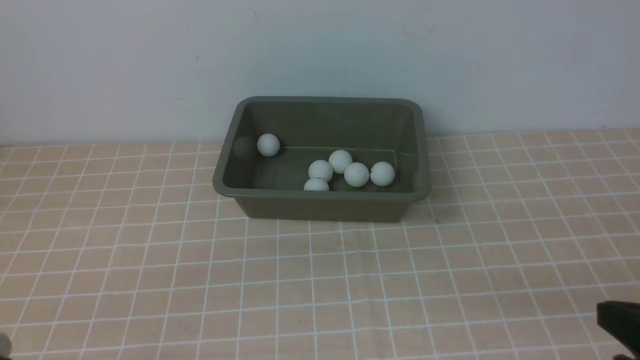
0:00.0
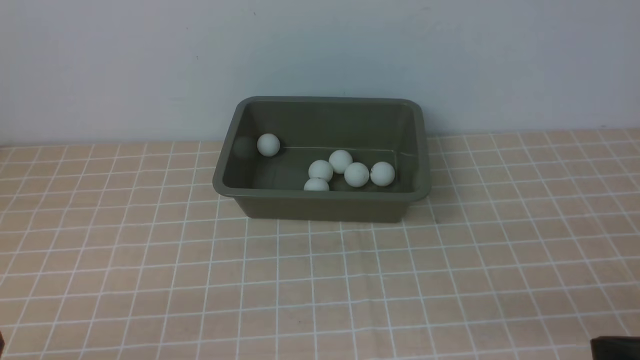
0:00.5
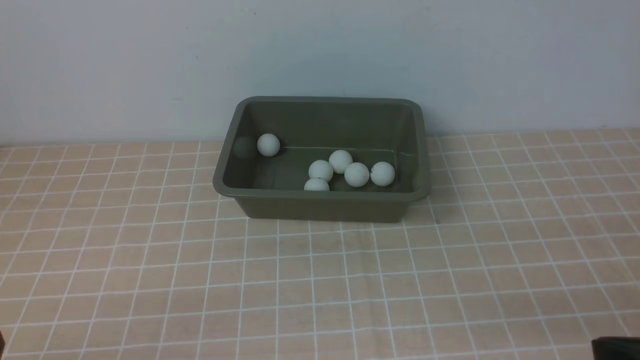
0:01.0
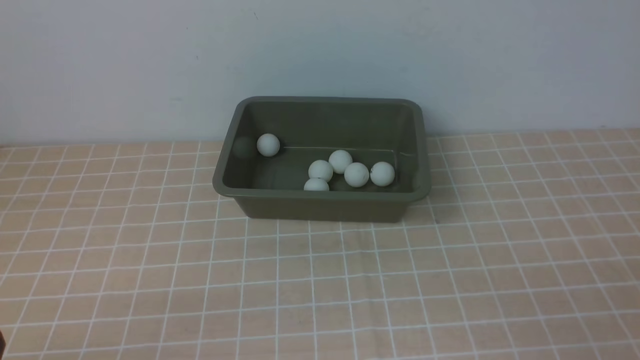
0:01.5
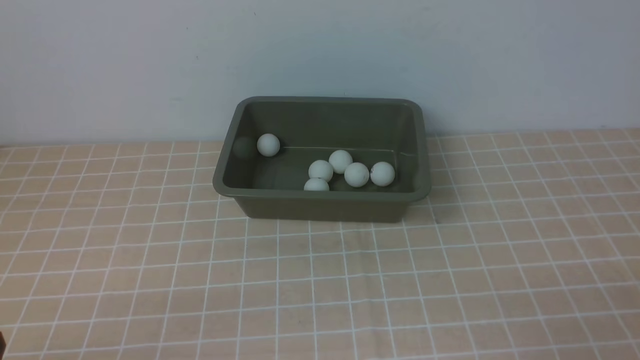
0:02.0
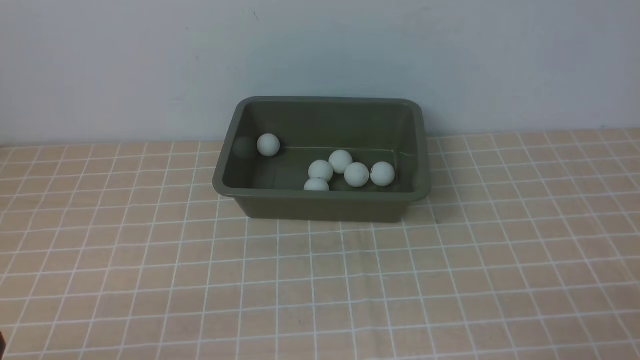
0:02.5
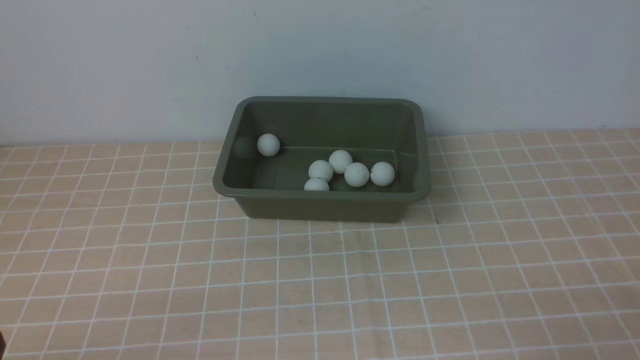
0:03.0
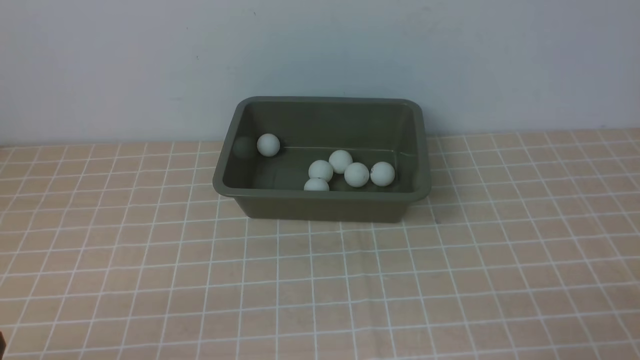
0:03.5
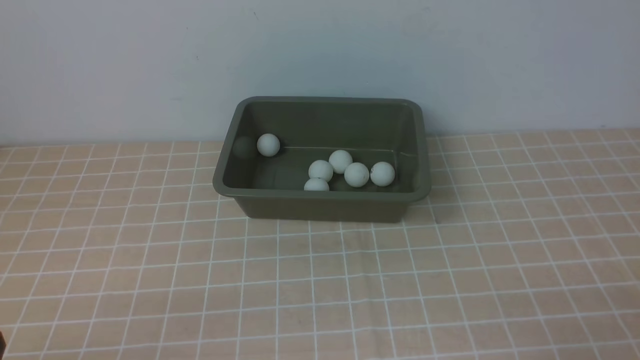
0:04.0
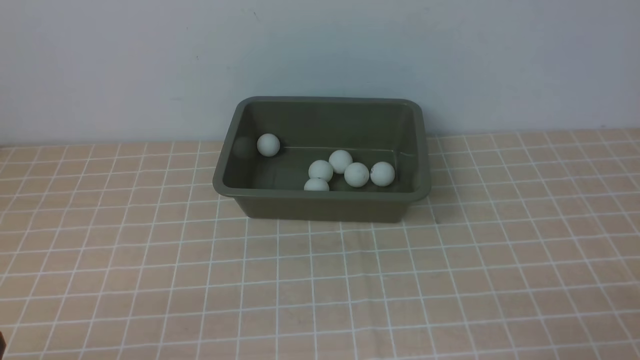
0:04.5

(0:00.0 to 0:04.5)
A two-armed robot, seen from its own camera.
0:00.0 - 0:02.0: The right gripper heads downward and backward, covering about 10 cm.
